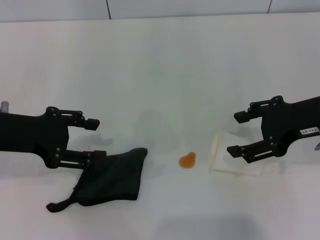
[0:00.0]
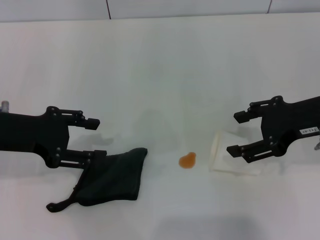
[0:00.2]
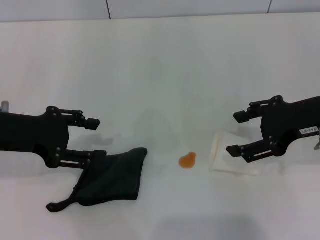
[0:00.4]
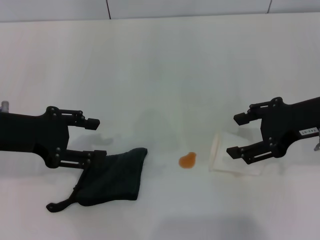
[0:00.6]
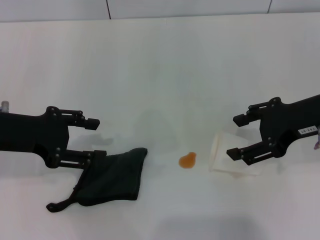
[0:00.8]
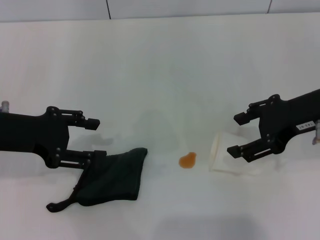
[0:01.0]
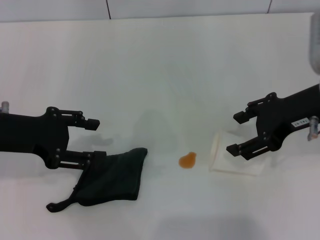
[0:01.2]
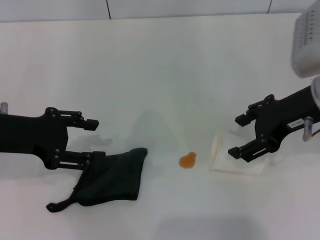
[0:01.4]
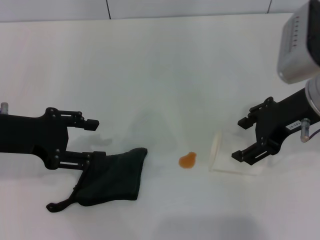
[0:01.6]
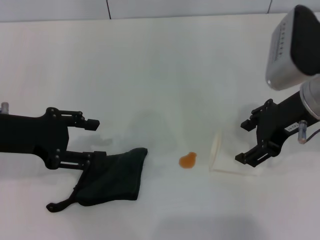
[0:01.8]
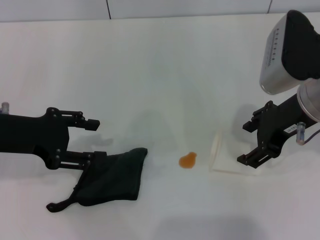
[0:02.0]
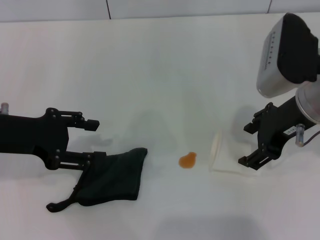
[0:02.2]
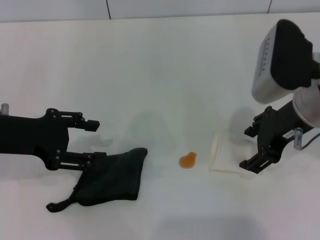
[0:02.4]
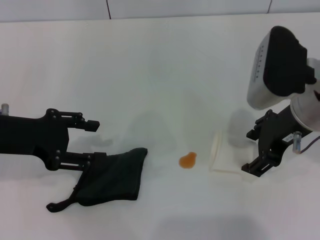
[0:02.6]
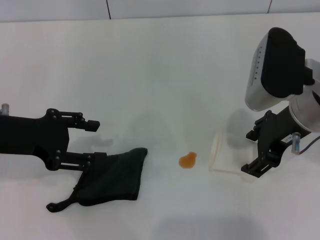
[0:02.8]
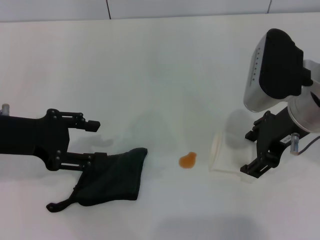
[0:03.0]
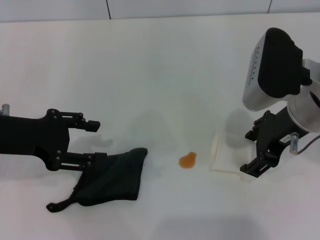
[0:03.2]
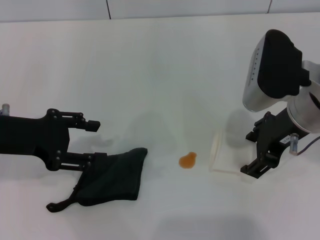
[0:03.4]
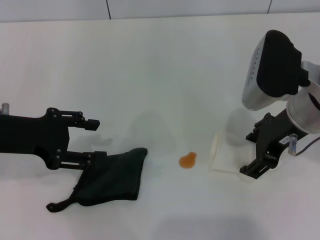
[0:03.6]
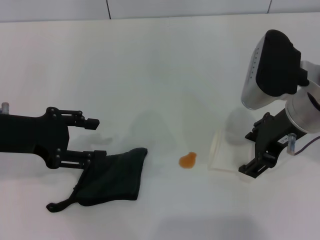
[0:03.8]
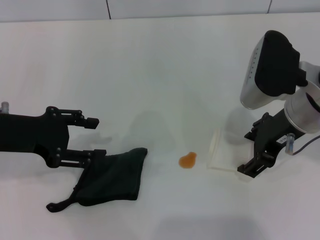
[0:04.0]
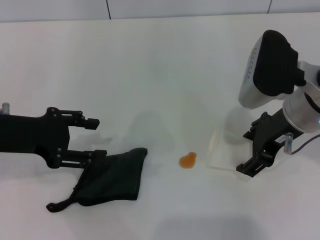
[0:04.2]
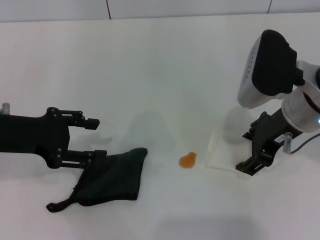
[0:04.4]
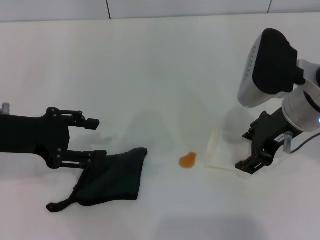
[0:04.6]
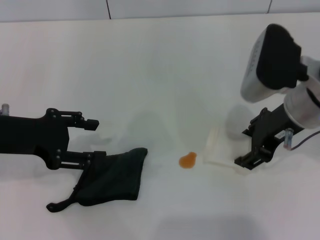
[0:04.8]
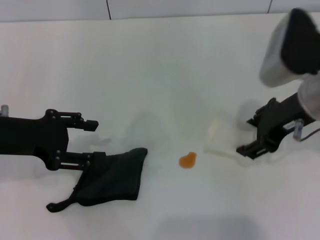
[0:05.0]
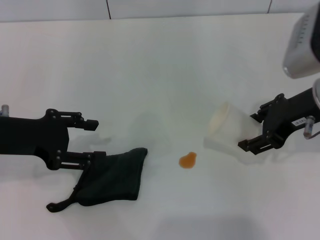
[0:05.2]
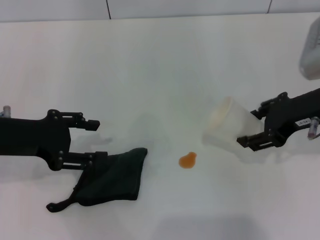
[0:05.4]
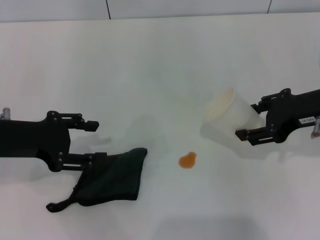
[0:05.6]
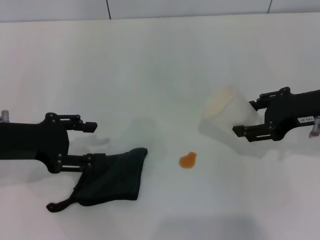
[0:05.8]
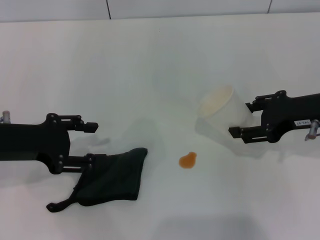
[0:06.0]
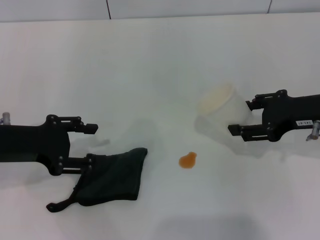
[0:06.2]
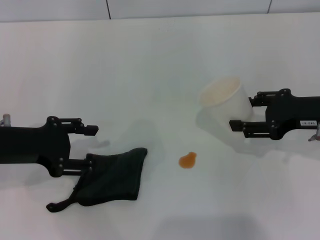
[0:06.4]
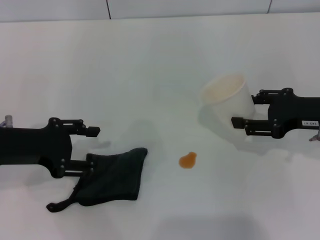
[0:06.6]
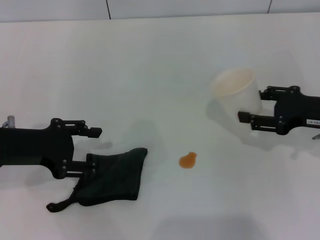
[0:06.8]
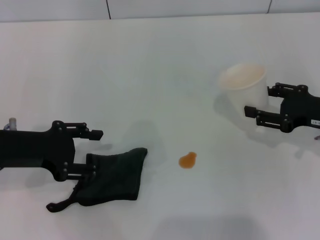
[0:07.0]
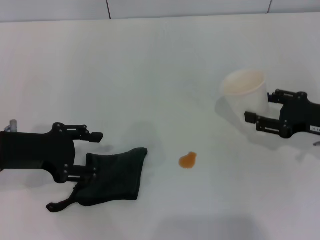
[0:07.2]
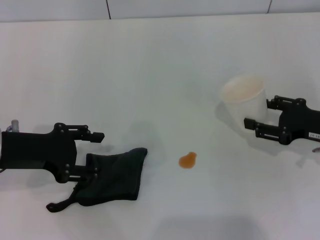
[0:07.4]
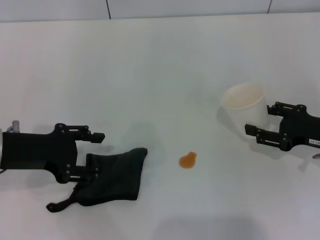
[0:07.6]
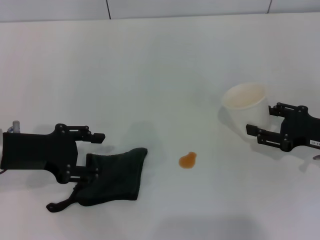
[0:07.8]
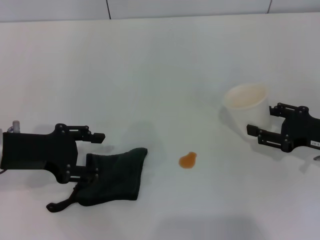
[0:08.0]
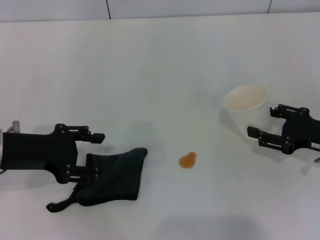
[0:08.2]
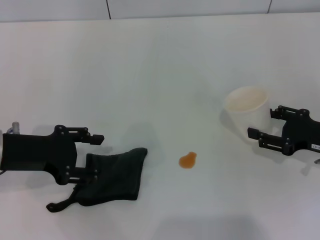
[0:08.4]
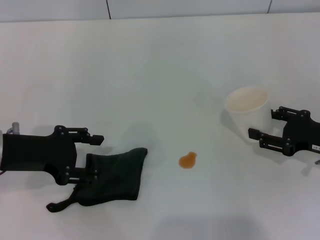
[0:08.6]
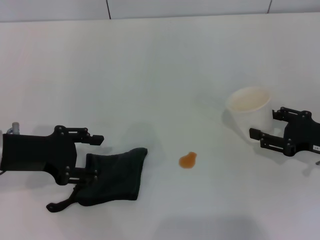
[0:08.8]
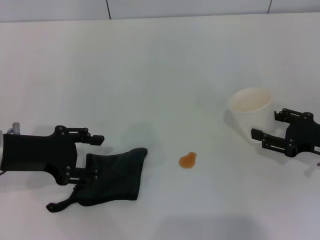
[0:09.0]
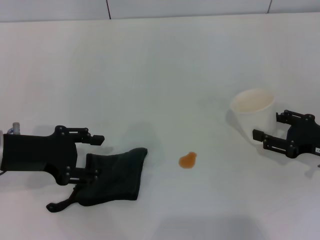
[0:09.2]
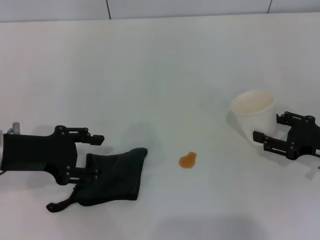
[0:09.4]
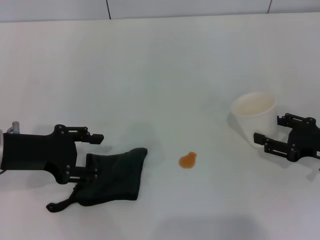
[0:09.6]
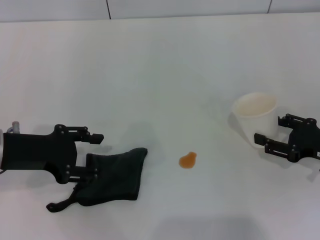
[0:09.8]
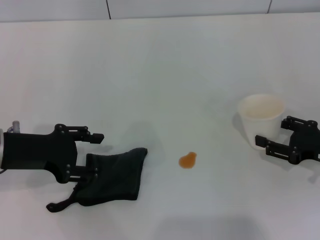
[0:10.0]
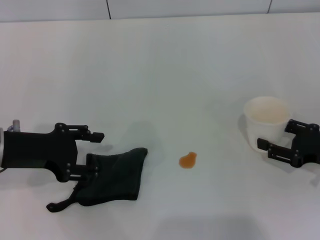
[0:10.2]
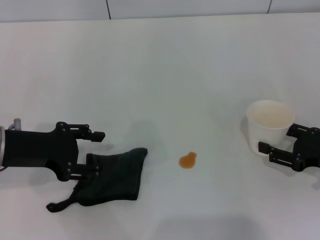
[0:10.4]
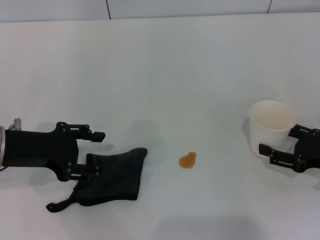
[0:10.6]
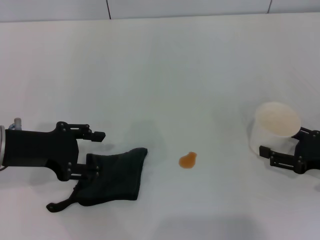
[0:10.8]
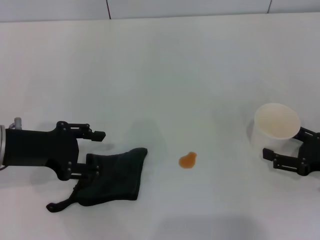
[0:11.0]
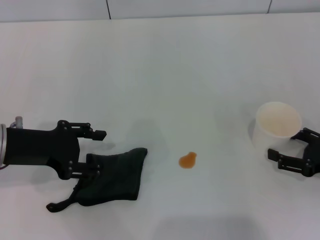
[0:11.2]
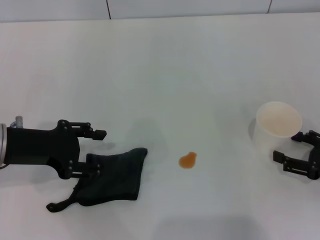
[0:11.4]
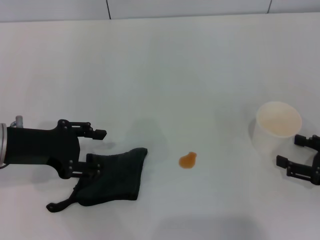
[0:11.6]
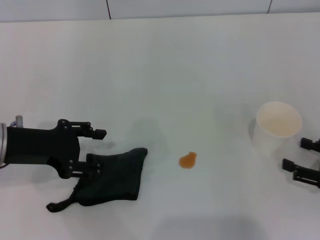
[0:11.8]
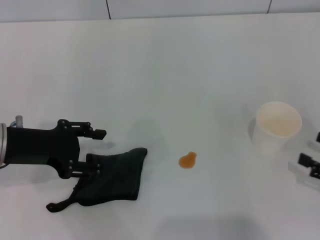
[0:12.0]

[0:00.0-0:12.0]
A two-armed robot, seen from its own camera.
Step, 0:00.0 to 0:04.6: Grasp the paper cup with the right gripper.
Step, 0:04.8 to 0:11.4: Stand the paper cup upright with the right gripper.
0:00.0 to 0:01.6: The grippers stay close to where they were, moving slightly.
0:01.6 to 0:03.0: The grippers make only small movements.
0:03.0 to 0:04.4: Both grippers stay about where they are.
0:04.4 to 0:06.0: The right gripper moves to the right, some 10 cm, and closes its fingers.
0:06.0 to 0:07.6: The right gripper moves downward and to the right, approximately 10 cm.
0:07.6 to 0:10.4: The grippers stay close to where they were, moving slightly.
0:10.4 to 0:12.0: The right gripper heads backward, covering some 5 cm, and opens its fingers.

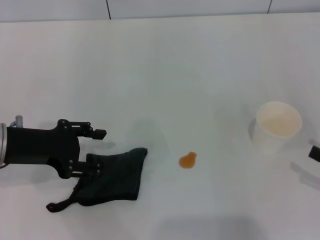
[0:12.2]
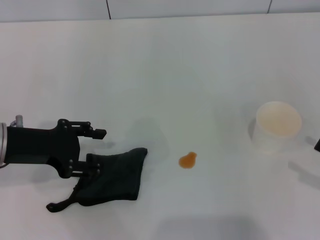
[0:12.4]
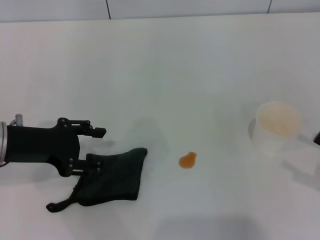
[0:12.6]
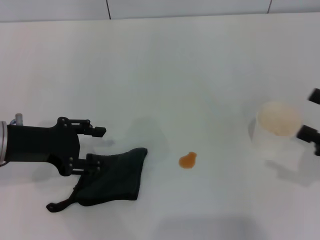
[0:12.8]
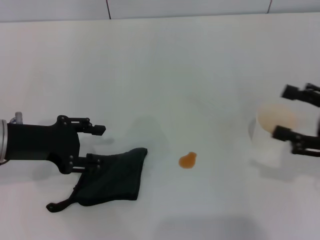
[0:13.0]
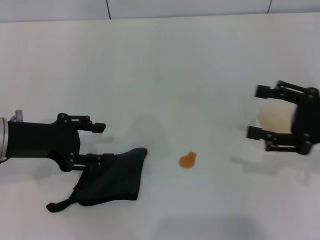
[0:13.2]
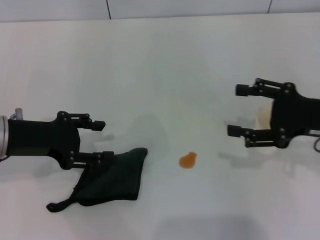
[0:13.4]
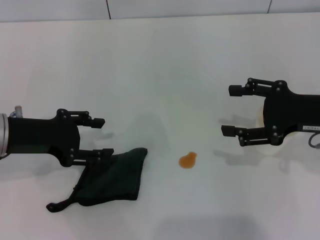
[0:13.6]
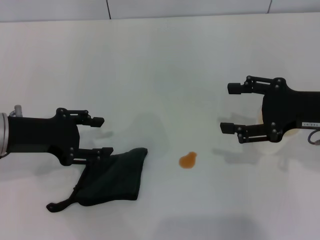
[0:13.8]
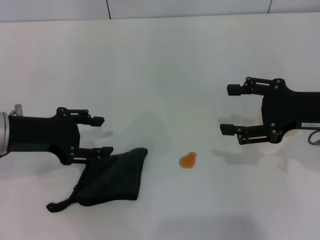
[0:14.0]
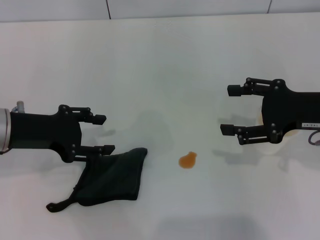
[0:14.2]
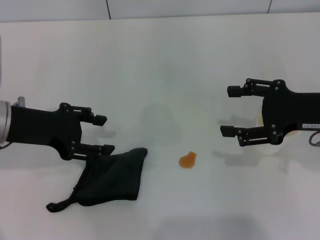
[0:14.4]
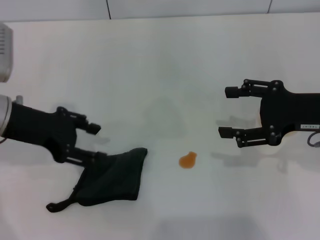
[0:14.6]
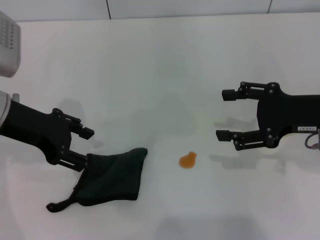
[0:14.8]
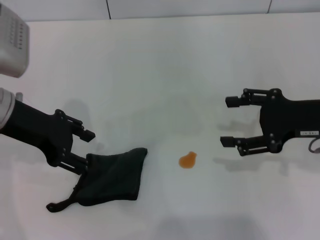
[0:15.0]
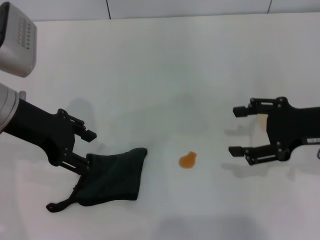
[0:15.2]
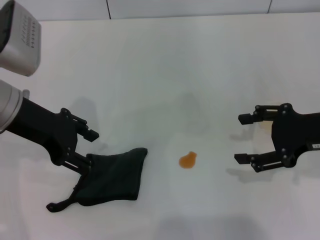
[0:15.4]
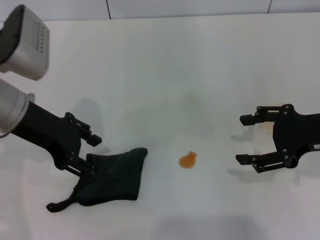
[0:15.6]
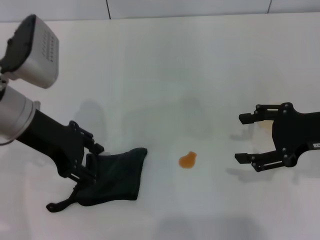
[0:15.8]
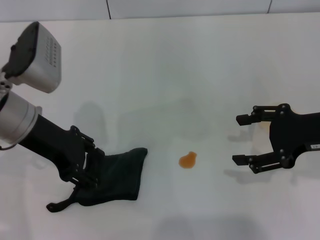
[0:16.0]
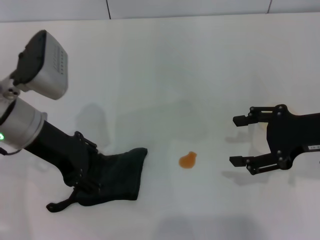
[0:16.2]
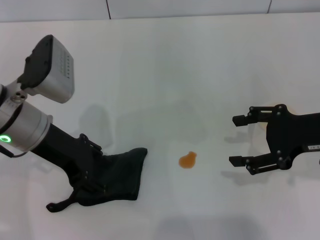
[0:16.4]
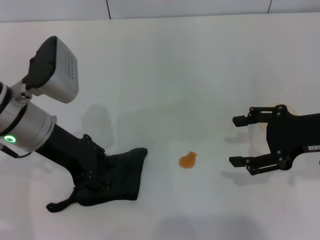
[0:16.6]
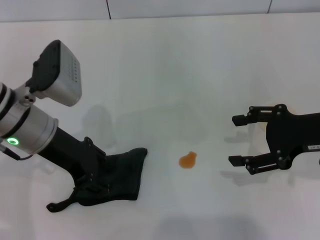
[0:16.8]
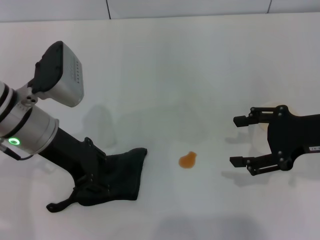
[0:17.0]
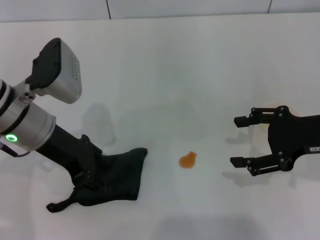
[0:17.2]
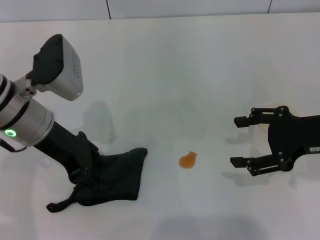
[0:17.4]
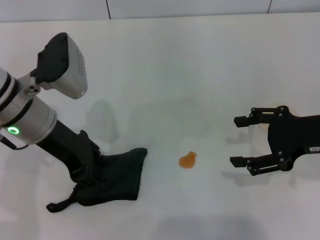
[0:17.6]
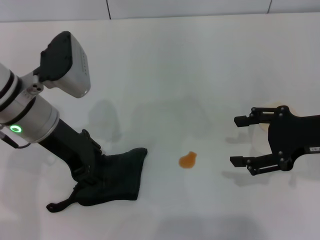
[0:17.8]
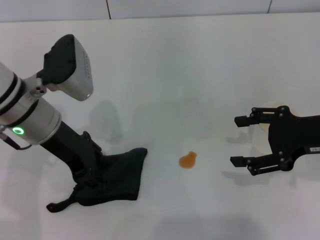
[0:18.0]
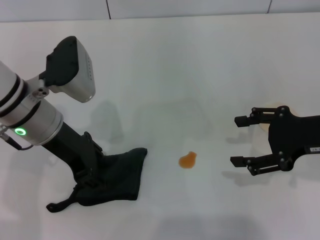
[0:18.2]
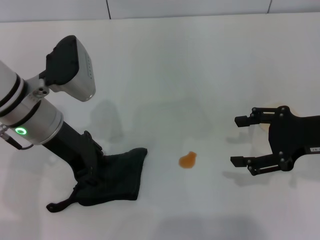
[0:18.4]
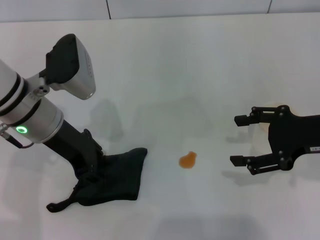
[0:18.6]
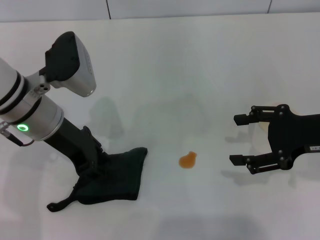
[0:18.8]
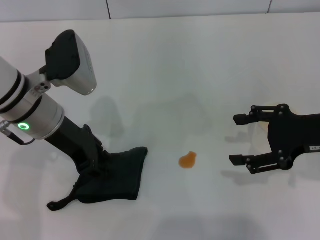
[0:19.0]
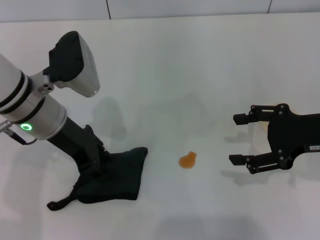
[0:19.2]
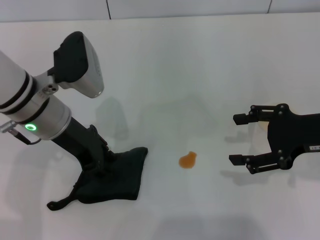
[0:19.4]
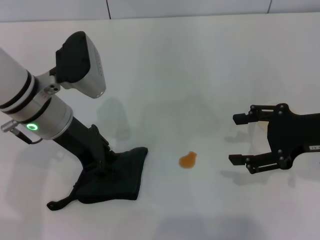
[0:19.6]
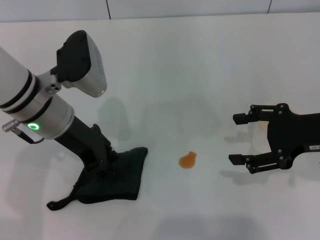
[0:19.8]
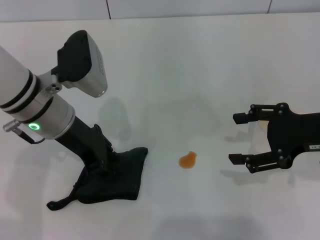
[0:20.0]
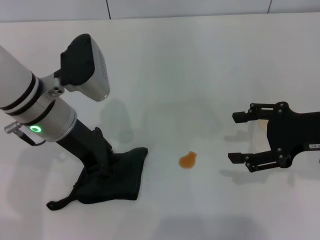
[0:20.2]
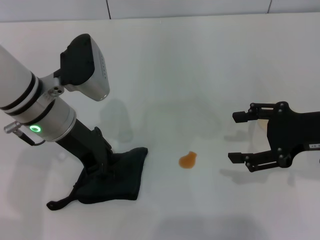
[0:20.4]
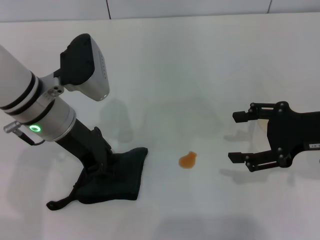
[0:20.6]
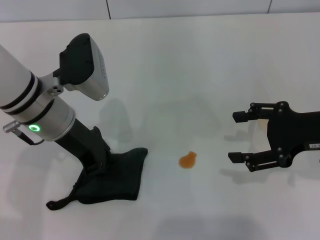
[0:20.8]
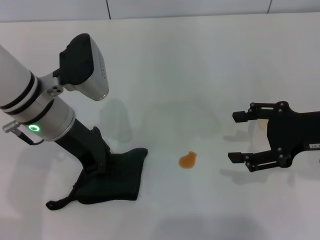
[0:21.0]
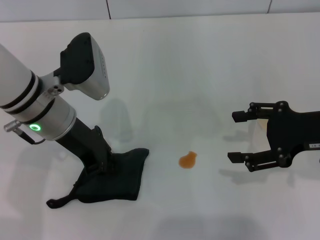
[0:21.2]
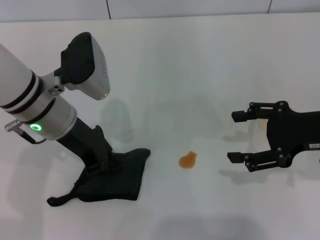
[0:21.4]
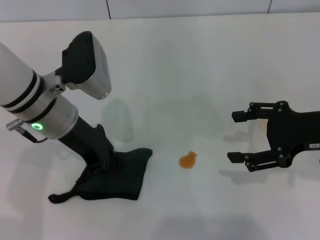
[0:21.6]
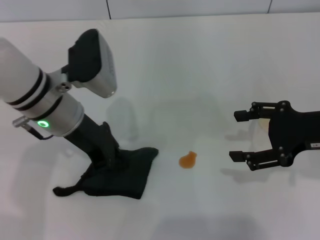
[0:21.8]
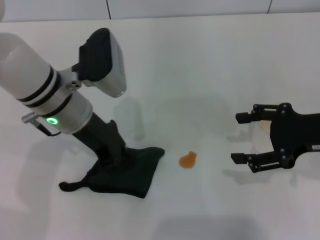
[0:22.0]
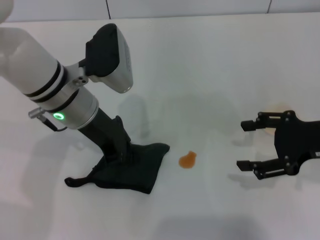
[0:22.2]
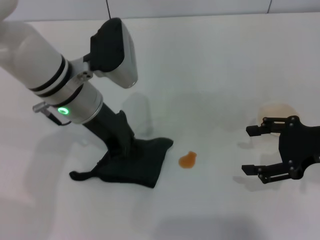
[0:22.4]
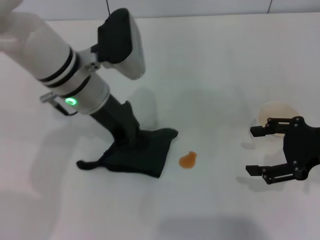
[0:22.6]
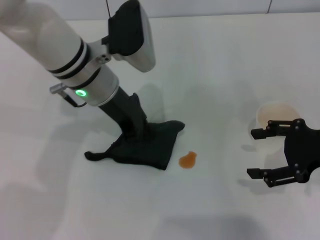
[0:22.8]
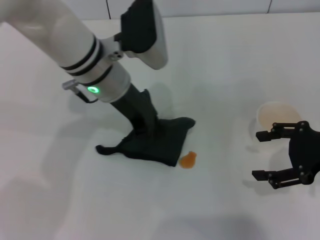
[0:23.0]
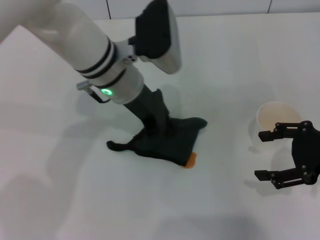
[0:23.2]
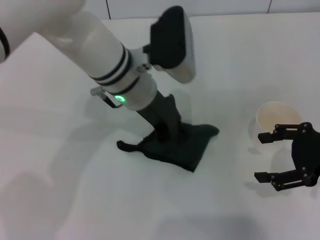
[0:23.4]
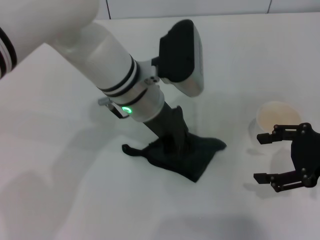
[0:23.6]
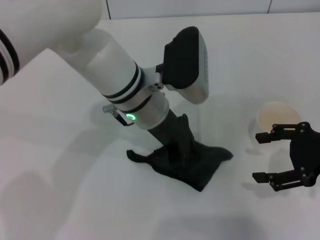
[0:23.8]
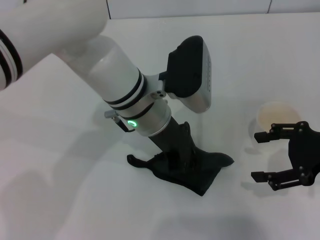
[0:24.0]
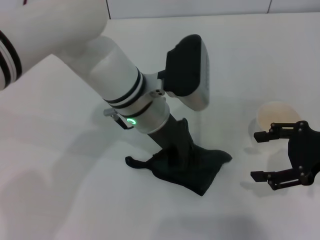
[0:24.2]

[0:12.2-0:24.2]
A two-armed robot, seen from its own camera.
Step, 0:12.2 to 0:21.6: Grasp the rag with the left gripper.
0:12.2 to 0:13.8: The right gripper moves forward, to the left and upward, approximately 20 cm.
0:13.8 to 0:15.2: The left gripper moves upward, roughly 5 cm.
0:15.2 to 0:16.6: The left gripper ends up approximately 5 cm from where it was.
0:16.6 to 0:18.2: The grippers move only a little.
0:18.2 to 0:19.8: Both grippers stay about where they are.
0:19.8 to 0:21.2: Both grippers stay put.
0:21.2 to 0:22.6: The left gripper shifts by some 5 cm.
0:22.6 to 0:24.2: The left gripper goes some 10 cm to the right.
